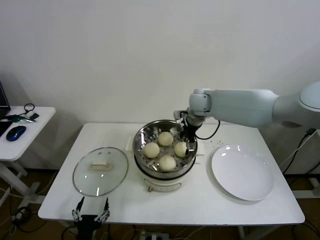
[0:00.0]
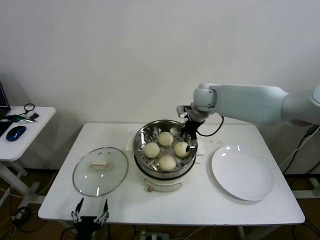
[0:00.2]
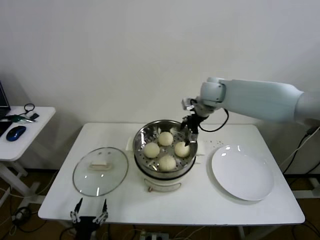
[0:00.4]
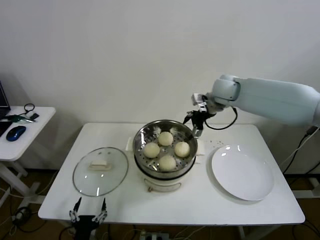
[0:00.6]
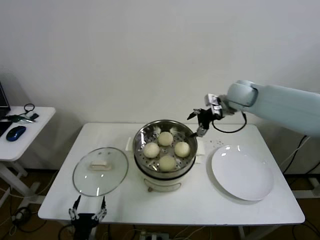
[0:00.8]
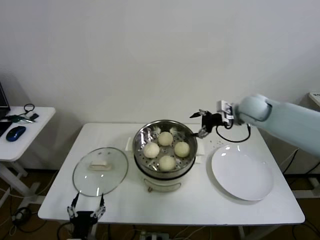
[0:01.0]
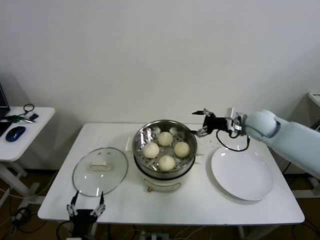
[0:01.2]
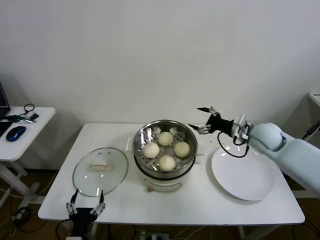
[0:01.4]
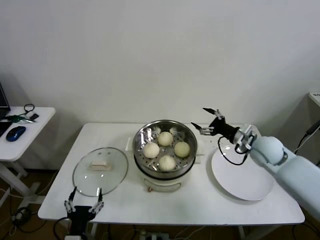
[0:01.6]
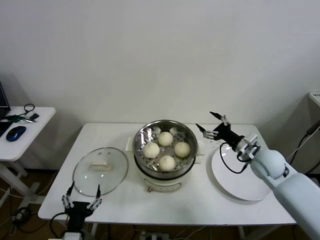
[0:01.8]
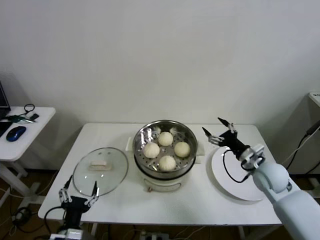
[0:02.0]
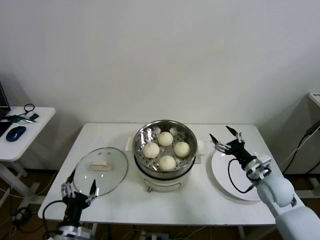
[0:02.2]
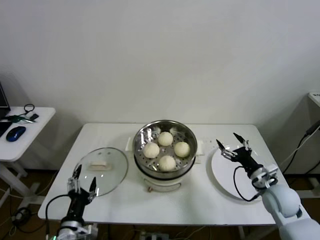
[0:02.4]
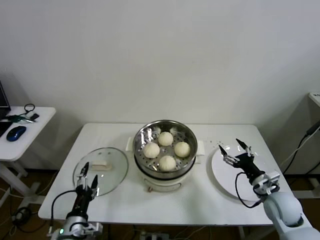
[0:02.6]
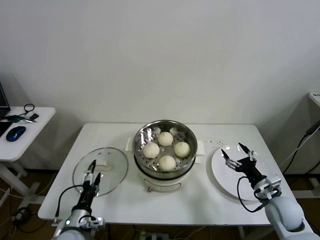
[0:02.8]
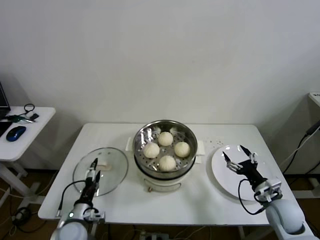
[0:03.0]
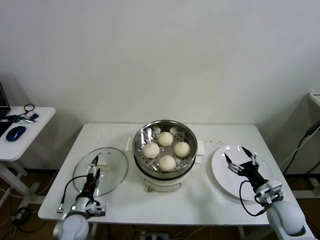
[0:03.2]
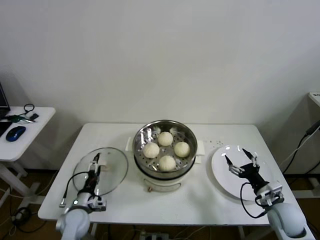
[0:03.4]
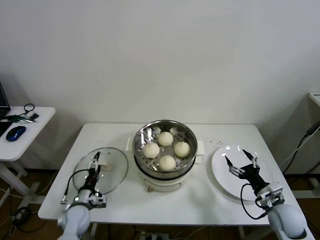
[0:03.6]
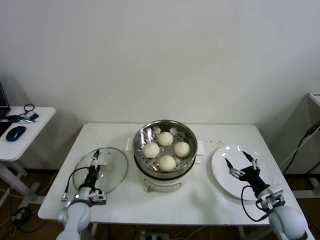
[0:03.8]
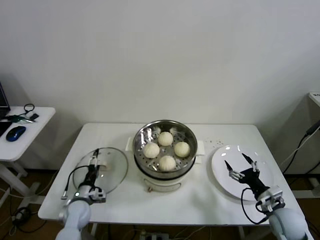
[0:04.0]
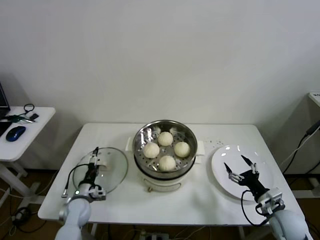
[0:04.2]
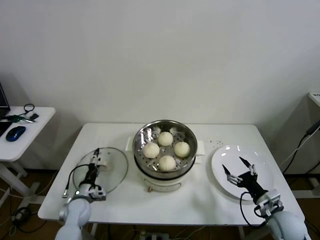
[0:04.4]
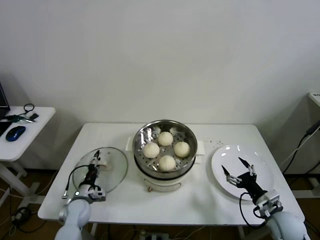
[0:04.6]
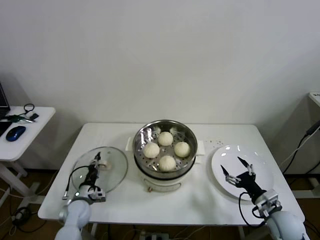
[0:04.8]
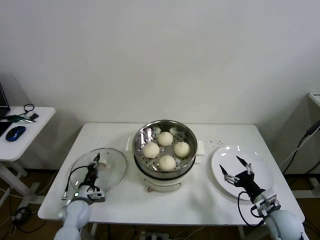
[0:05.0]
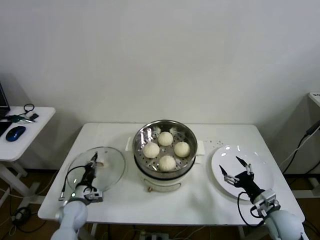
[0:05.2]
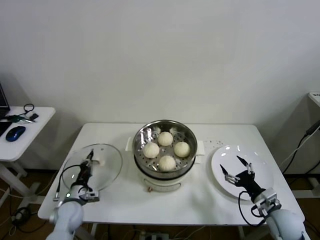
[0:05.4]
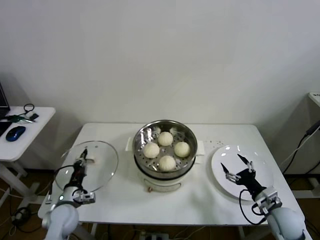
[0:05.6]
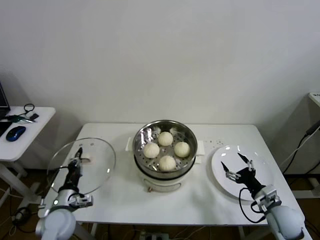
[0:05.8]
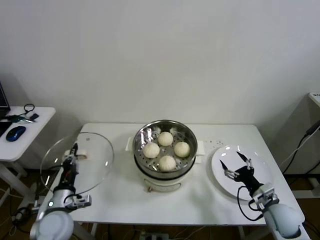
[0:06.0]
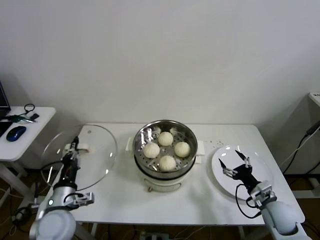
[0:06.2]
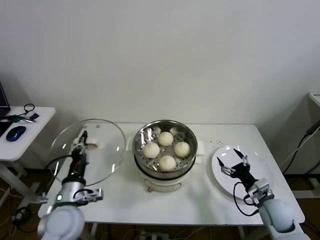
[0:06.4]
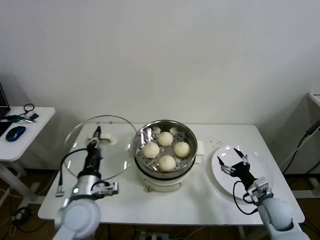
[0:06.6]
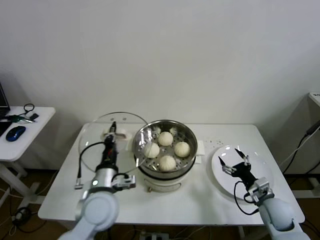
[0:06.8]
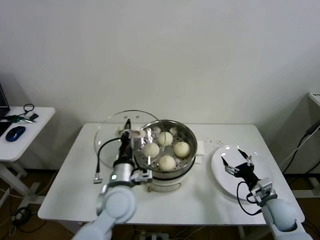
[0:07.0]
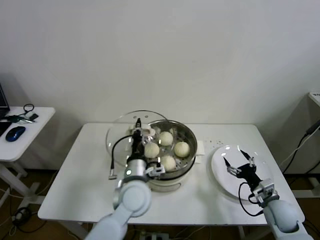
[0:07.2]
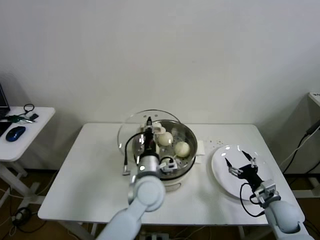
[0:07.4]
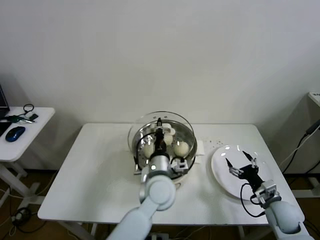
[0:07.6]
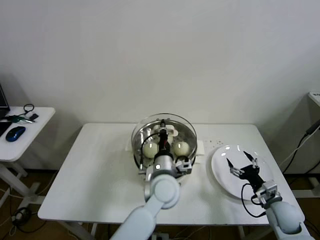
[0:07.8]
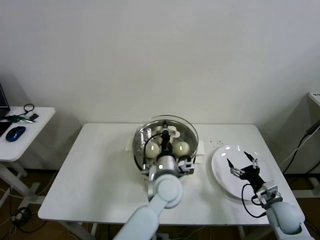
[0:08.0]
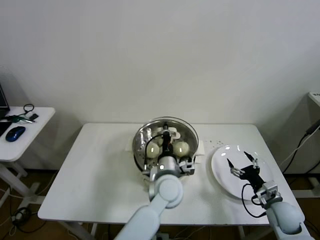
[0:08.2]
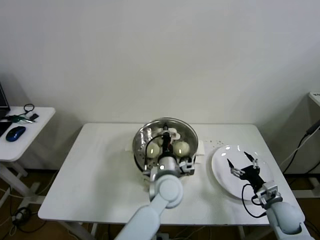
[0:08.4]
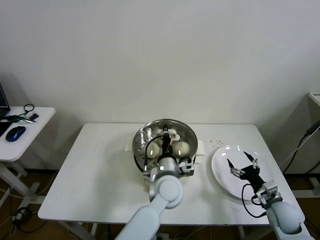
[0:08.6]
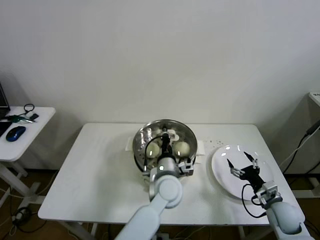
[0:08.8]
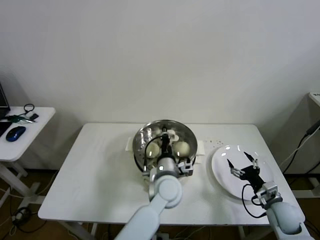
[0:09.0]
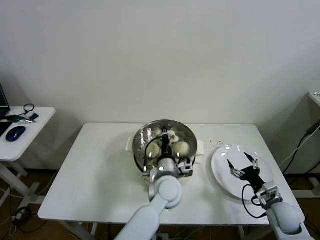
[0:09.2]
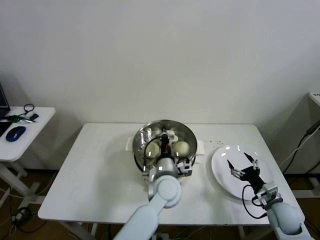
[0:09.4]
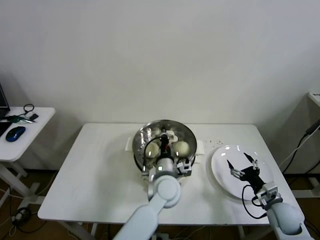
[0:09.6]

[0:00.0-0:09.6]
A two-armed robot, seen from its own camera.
Step, 0:00.0 to 0:04.8: Grasp the pot lid with left gripper.
0:00.0 to 0:01.6: The right gripper is displaced to the right, backward and downward by roughly 25 cm.
0:01.6 to 0:03.2: The right gripper goes some 20 cm backward and downward. Meanwhile the left gripper goes roughly 15 cm forward and downward.
0:03.2 to 0:04.8: The left gripper goes about 5 cm forward, and closes up.
0:04.8 to 0:06.4: The left gripper moves upward and backward, approximately 20 cm, and closes.
0:06.4 to 0:08.0: The left gripper heads to the right, covering approximately 30 cm.
0:08.0 to 0:09.6: The grippers make only small movements.

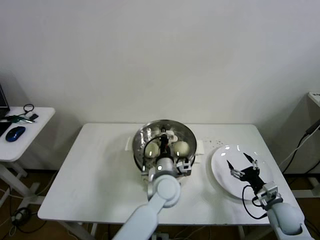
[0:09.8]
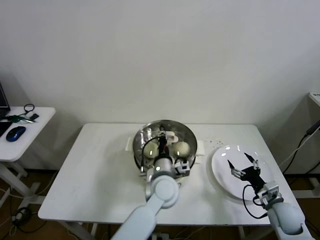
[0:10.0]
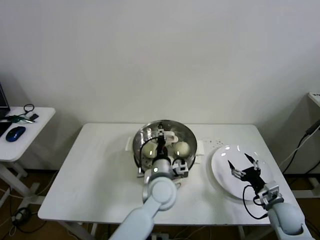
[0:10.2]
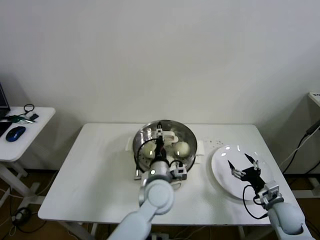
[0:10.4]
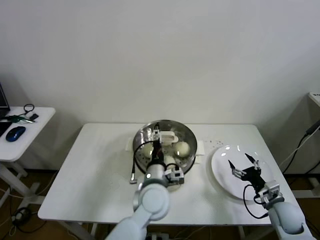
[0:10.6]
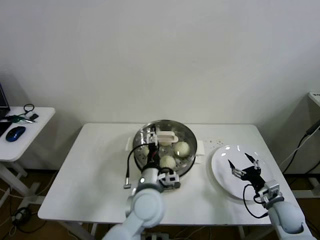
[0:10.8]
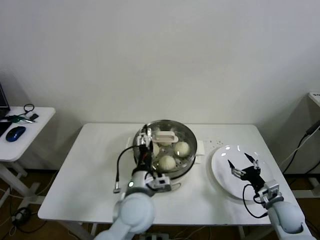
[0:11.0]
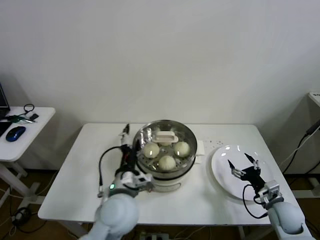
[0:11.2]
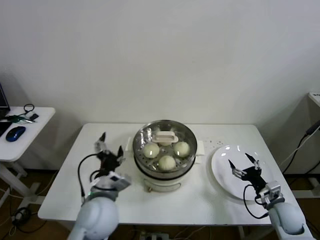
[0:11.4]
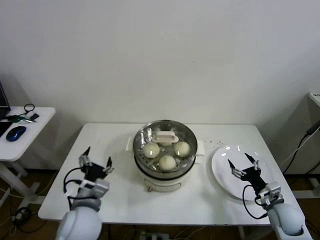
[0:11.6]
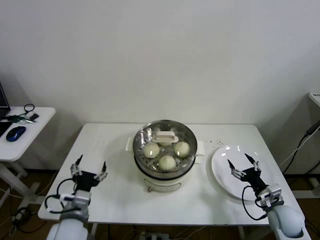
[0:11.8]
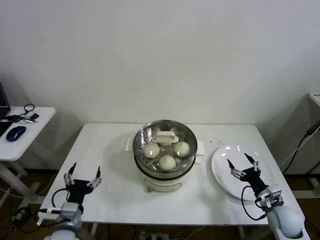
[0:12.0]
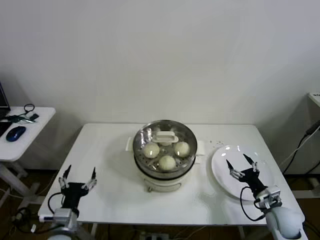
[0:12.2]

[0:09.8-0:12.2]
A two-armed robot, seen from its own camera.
0:09.8 to 0:11.0: The left gripper travels backward and to the left by some 10 cm, and opens its fingers.
0:11.0 to 0:12.2: The left gripper goes some 25 cm to the left.
